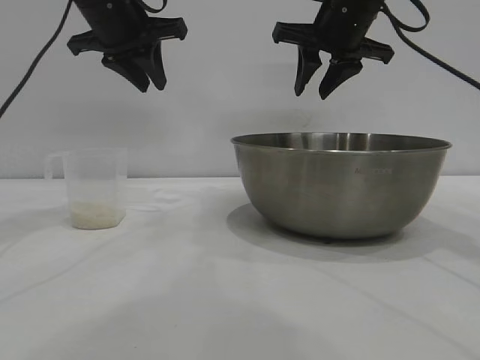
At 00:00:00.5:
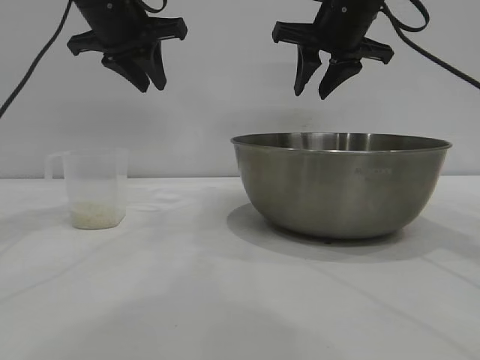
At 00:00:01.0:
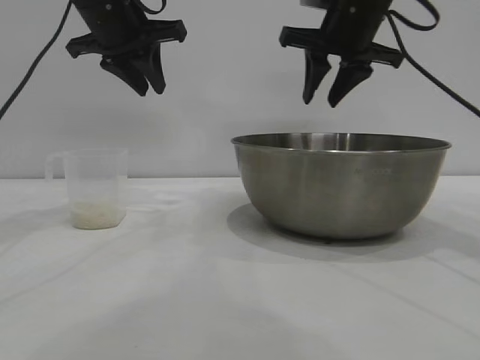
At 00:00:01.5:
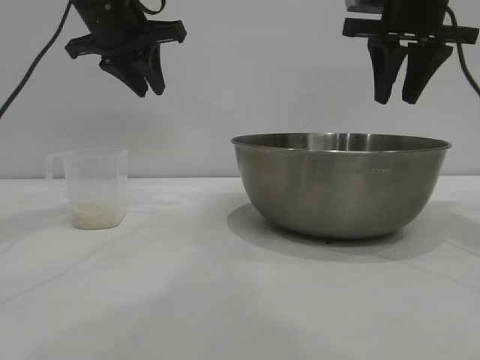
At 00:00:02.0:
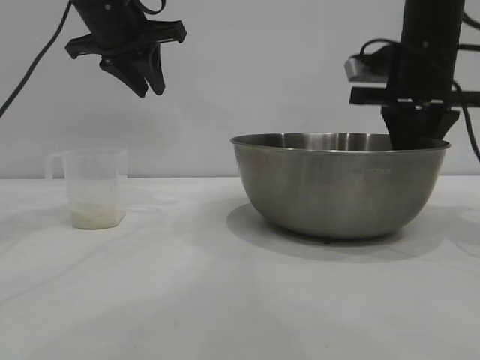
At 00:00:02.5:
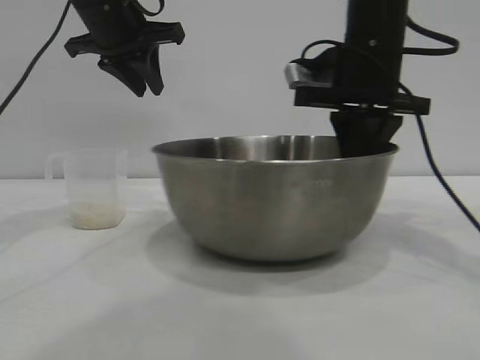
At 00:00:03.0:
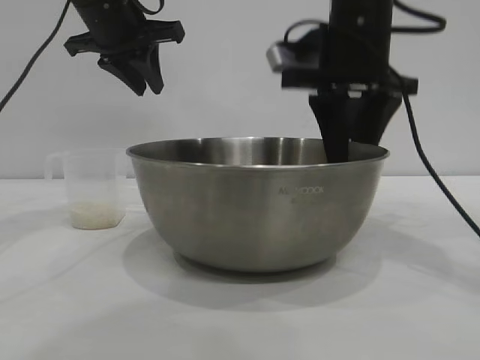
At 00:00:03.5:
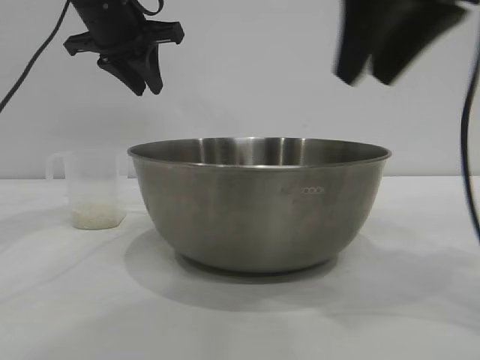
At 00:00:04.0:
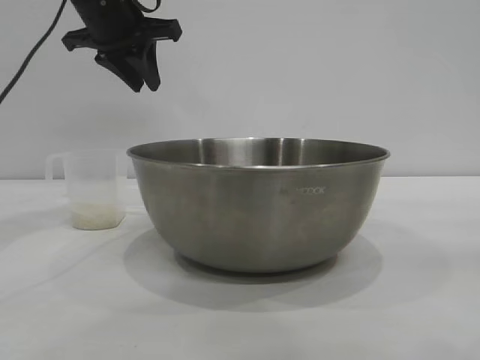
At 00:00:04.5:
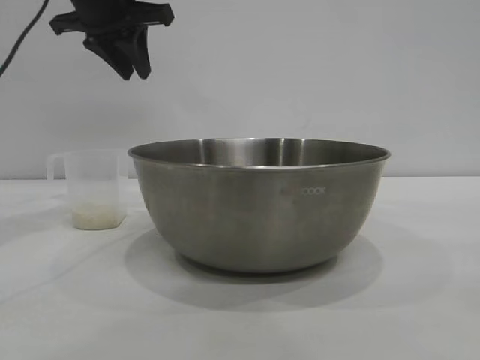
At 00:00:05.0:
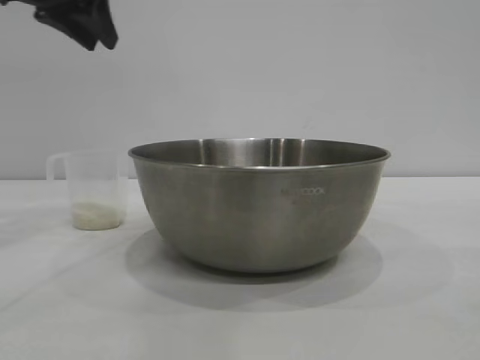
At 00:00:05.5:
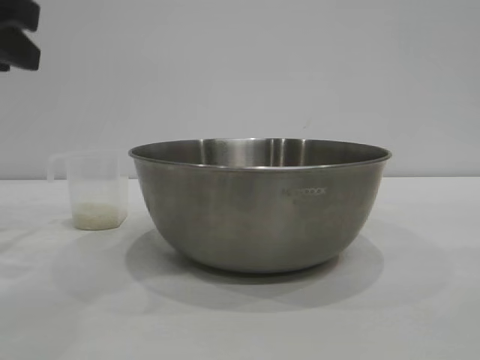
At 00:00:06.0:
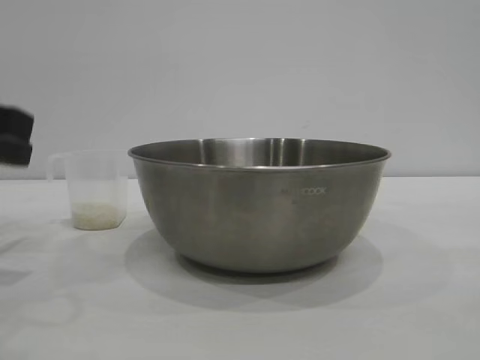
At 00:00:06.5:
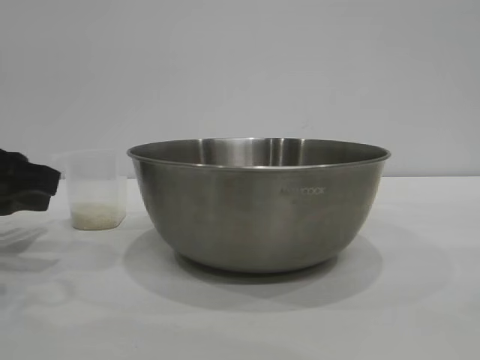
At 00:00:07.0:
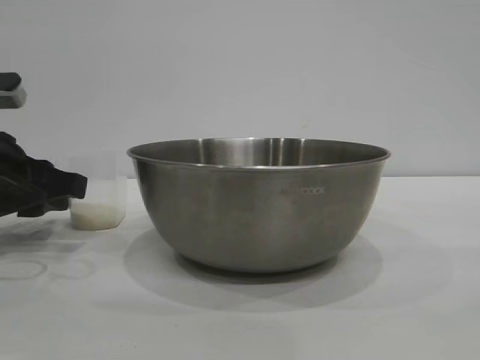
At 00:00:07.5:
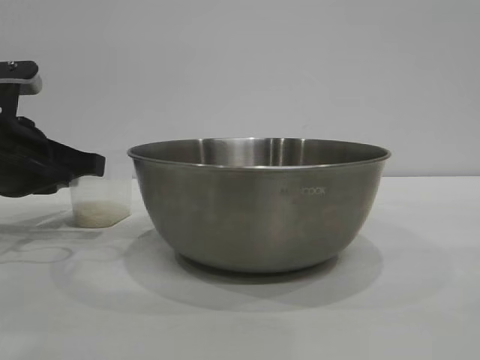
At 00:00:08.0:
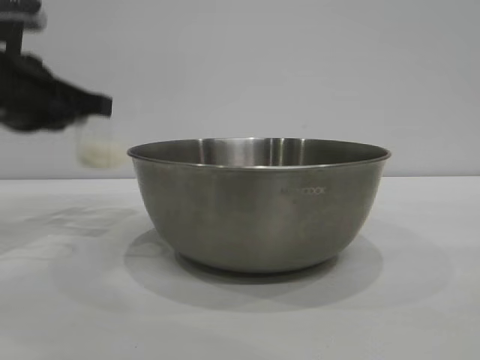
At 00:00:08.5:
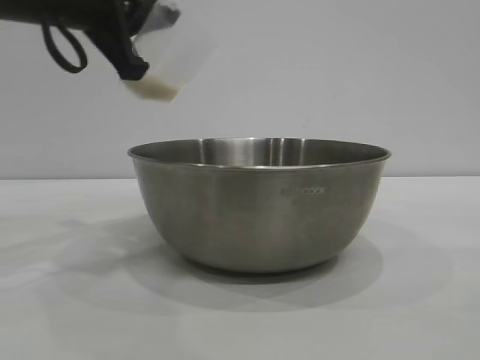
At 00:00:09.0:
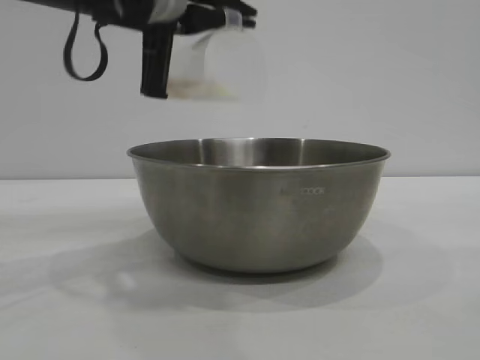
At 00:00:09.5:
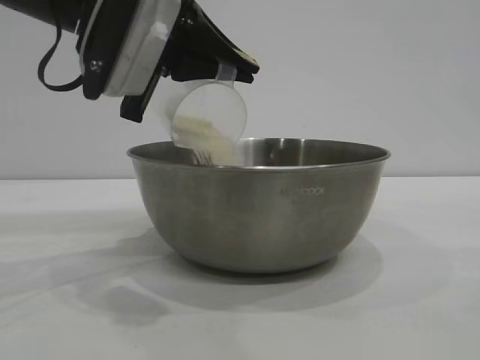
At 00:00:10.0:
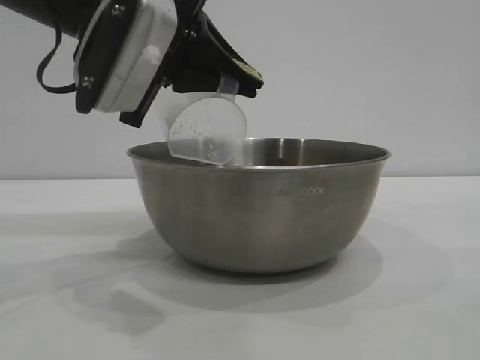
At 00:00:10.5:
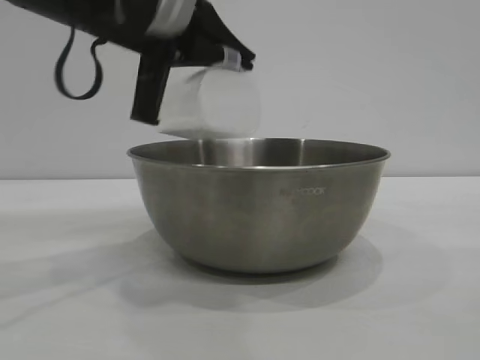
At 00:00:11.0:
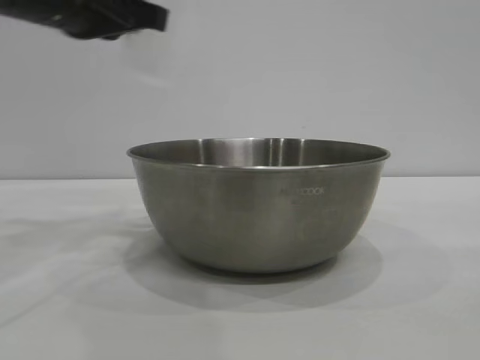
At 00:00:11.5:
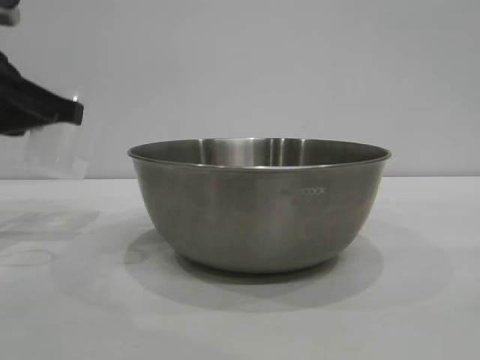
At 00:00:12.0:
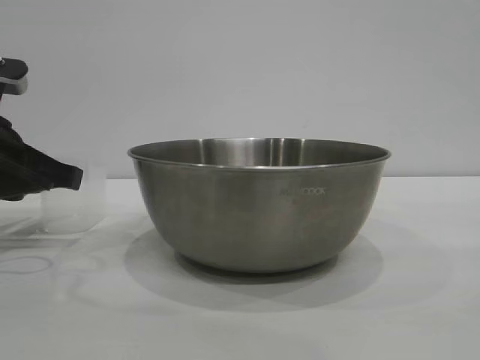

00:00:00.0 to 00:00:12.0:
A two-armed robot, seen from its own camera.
Task of the whole recording: the right gripper grasp the rice container and place it in the center of the table, the left gripper grasp the rice scoop and pour the rice into the rice container.
Step, 00:00:00.0 to 00:00:03.0: Move the bowl to the center of view with the right gripper.
Step, 00:00:03.5 to 00:00:08.0: Pick up the cup with rice in it with the left gripper.
Step, 00:00:08.5 to 00:00:10.5: Pour the rice from the cup into the bowl with the left gripper.
